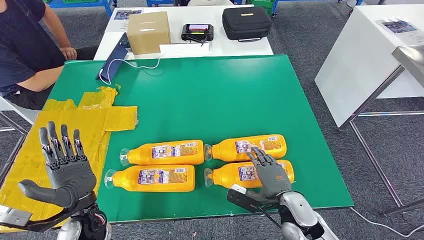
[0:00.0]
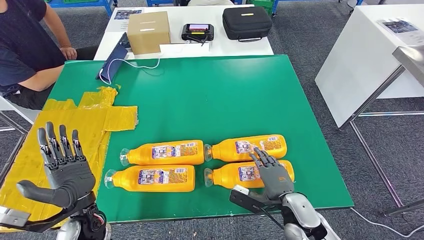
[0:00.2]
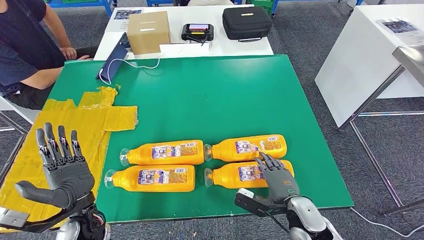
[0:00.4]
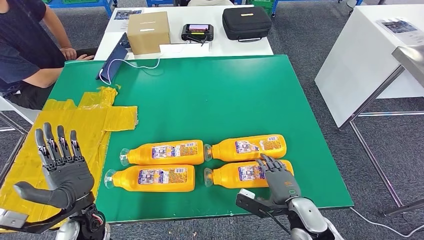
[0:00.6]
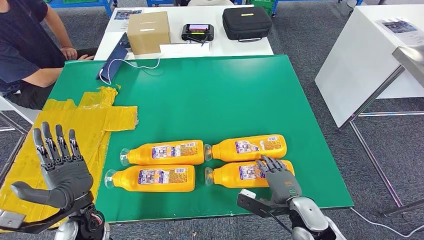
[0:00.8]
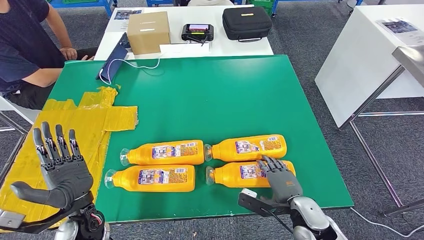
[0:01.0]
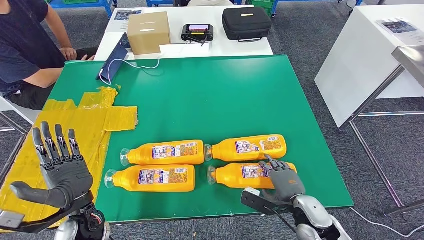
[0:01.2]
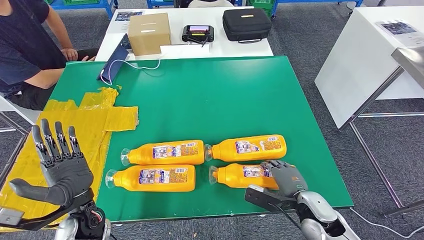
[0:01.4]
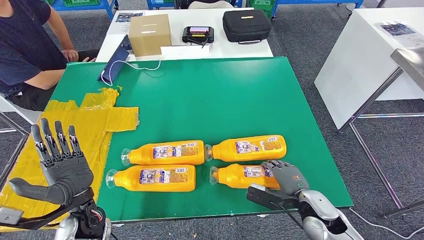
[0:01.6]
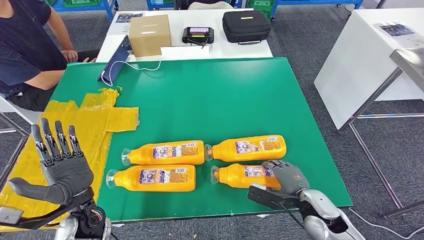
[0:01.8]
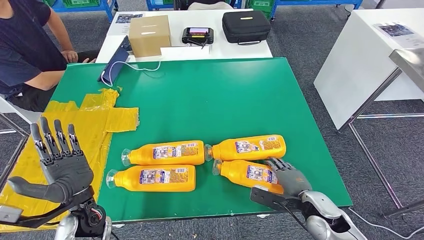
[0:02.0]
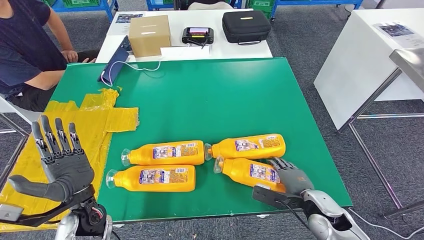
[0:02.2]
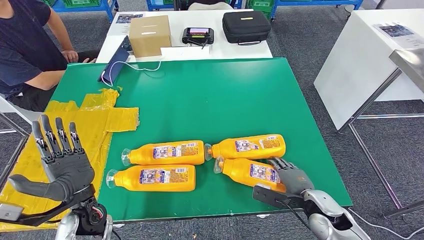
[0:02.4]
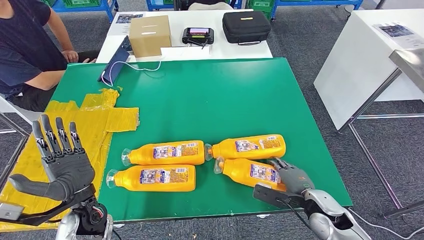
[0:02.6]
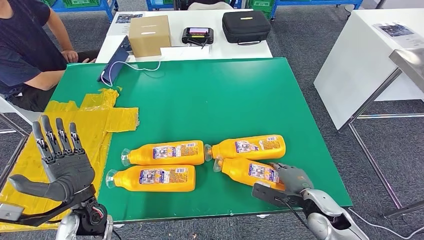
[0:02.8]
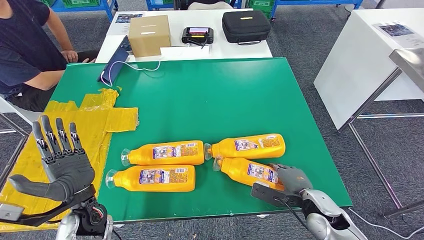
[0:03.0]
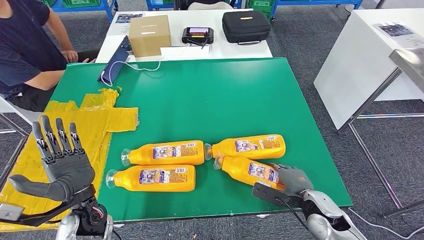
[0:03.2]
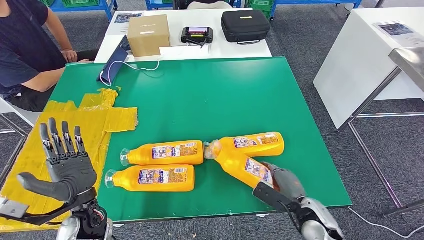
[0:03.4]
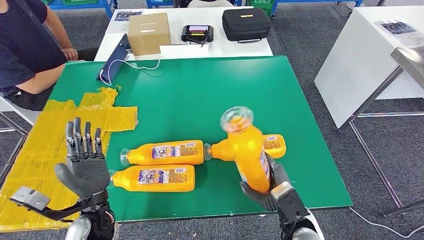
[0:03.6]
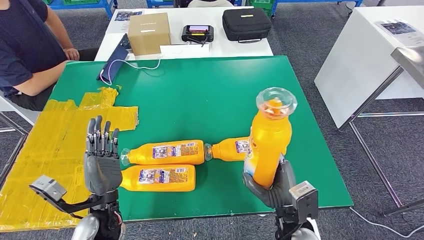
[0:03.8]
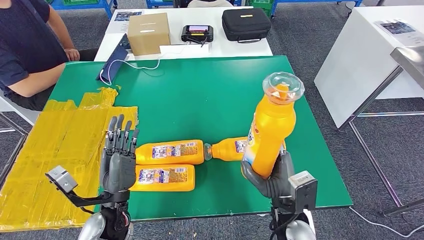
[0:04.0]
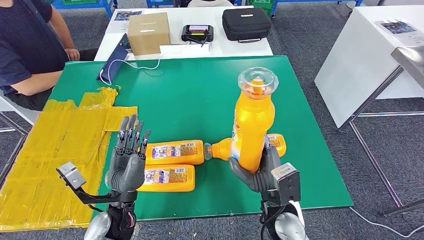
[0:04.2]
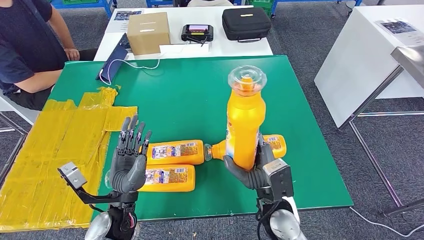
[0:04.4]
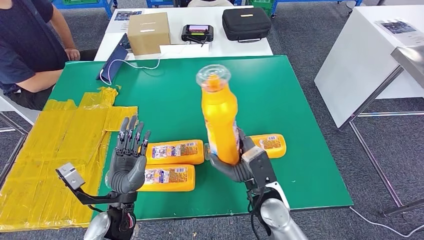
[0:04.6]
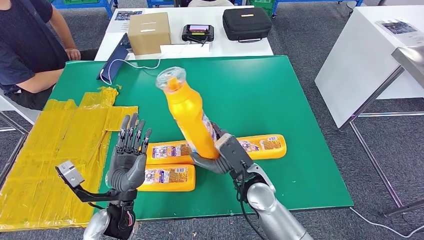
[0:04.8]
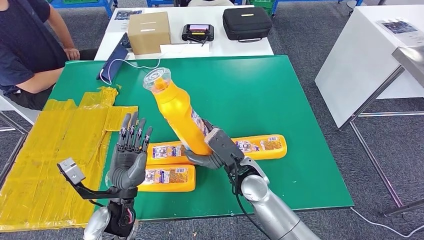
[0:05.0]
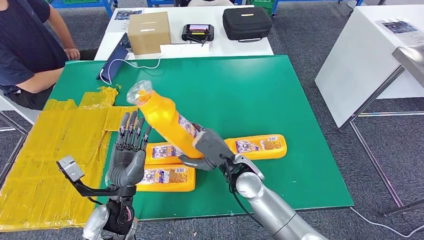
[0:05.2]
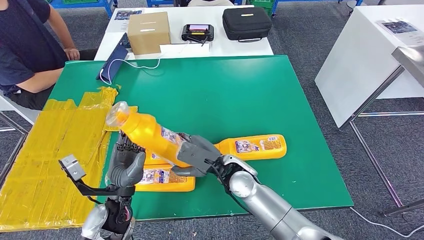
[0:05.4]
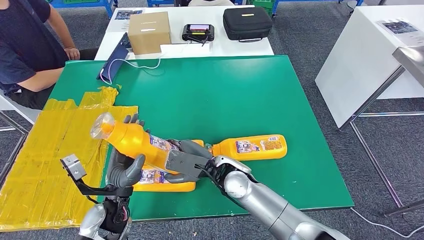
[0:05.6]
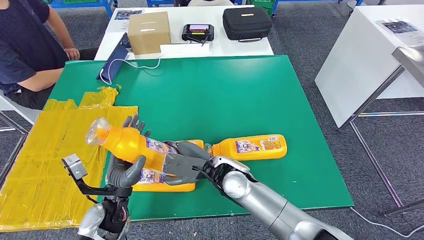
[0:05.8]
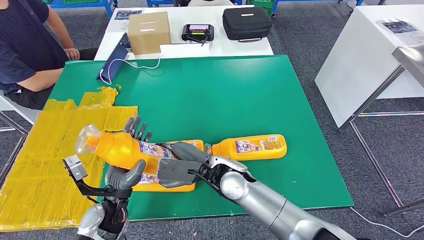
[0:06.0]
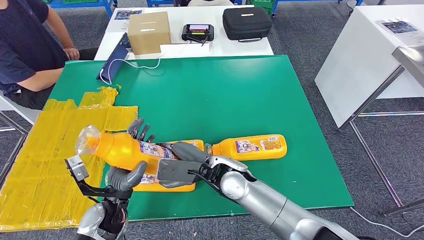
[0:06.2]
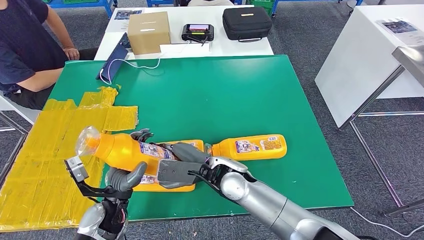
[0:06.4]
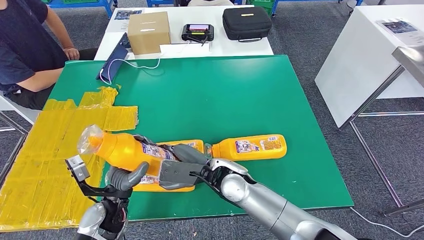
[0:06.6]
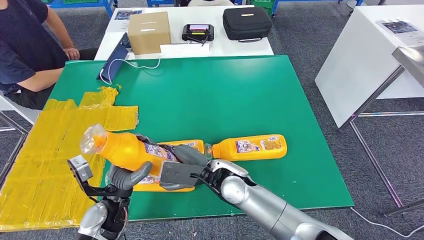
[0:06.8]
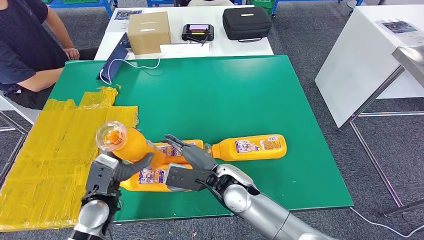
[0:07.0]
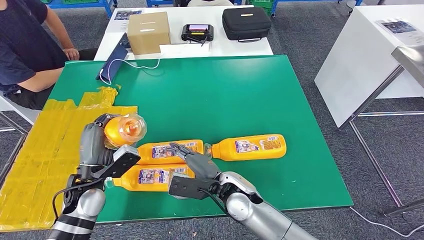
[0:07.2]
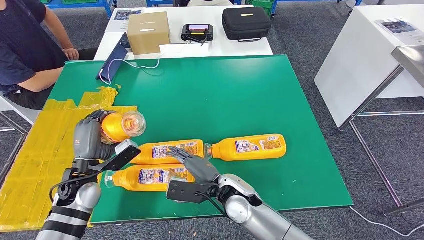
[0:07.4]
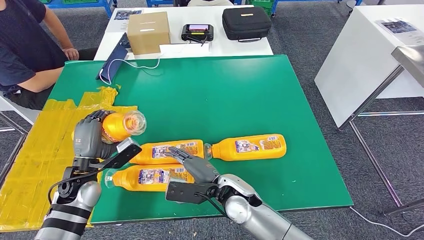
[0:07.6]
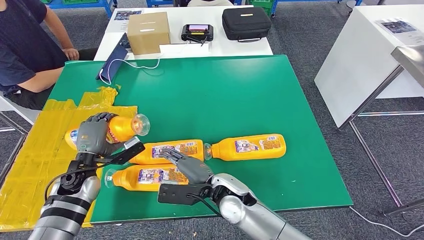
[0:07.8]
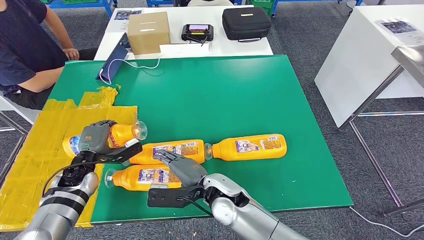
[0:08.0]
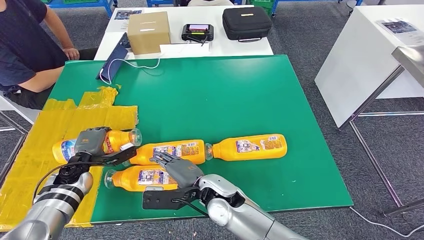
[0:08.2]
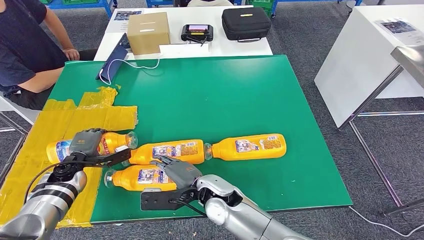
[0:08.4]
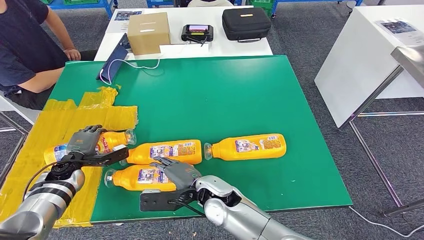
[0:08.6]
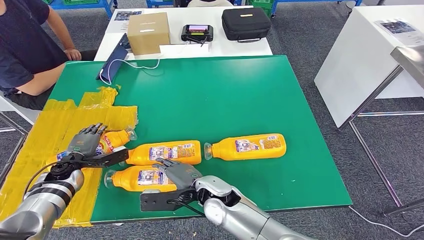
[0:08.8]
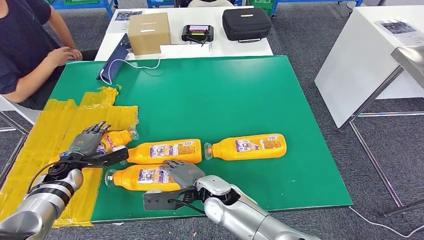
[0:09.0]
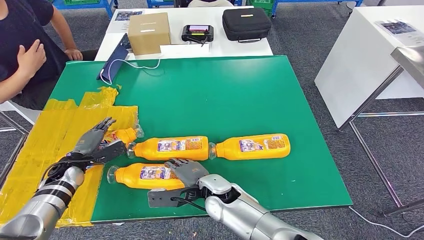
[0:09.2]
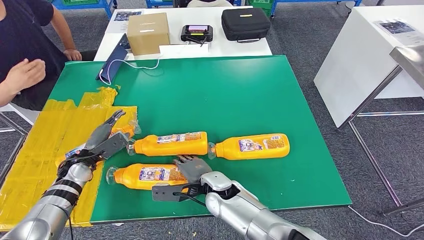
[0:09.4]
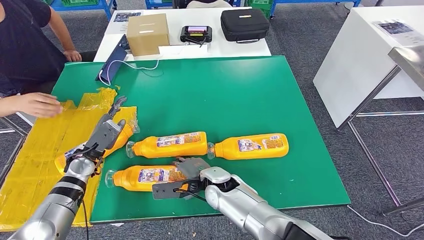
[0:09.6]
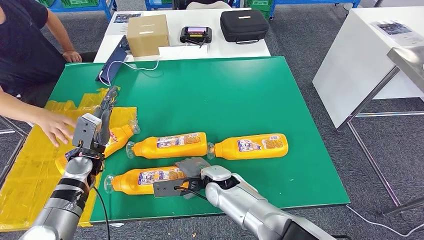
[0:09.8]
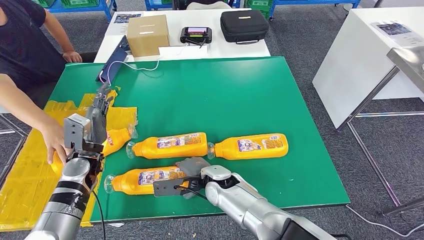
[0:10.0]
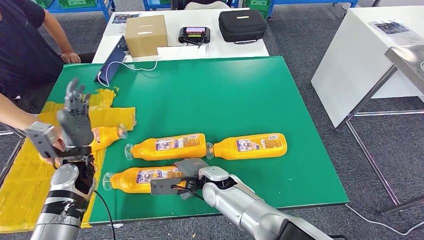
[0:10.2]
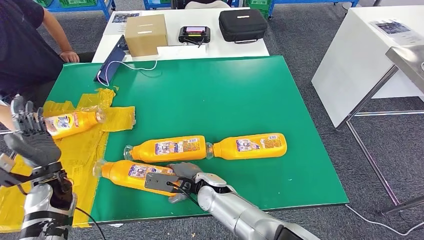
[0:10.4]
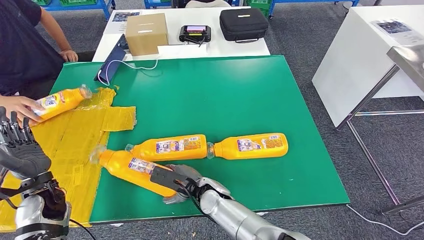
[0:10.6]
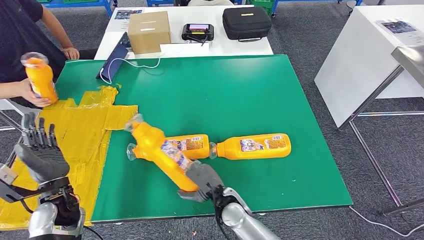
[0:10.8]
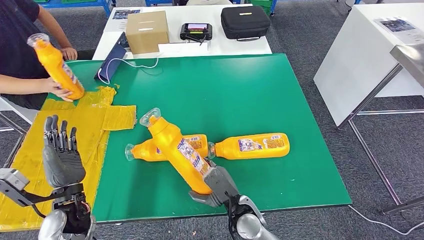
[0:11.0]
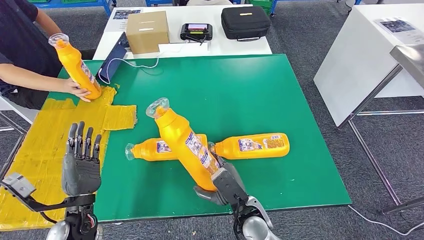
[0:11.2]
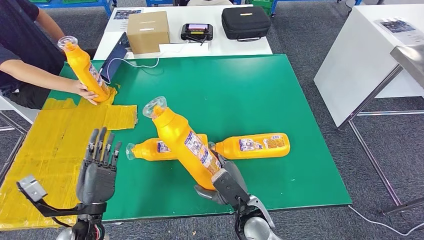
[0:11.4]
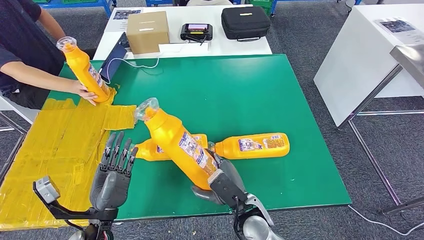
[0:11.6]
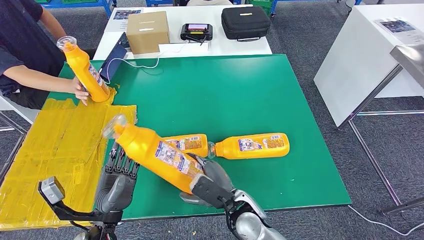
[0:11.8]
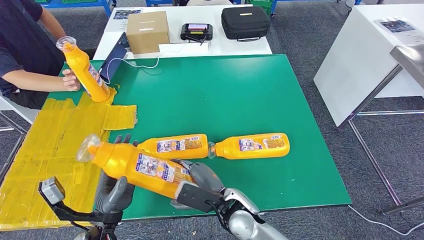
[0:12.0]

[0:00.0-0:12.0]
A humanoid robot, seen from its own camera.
Step, 0.0 to 3.6 s: Take the bottle from the table.
Step, 5.0 to 9.2 s: Flip the bottle to face forward.
Step, 9.8 to 11.4 s: Pick up the bottle from the table.
1.6 to 3.0 s: The hands stay close to where they were, moving slightly.
4.4 to 6.0 s: The right hand goes approximately 15 cm to the left and forward.
6.0 to 7.6 s: The right hand ends up approximately 5 cm from where it was. The left hand moves to the left and forward, some 10 cm.
7.6 to 9.0 s: The right hand ends up approximately 5 cm from where it was; the left hand moves to the left, downward and forward, about 15 cm.

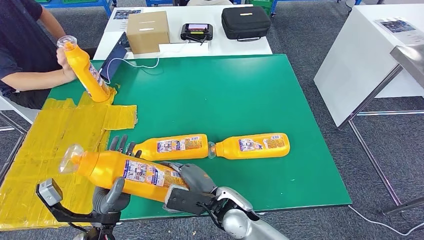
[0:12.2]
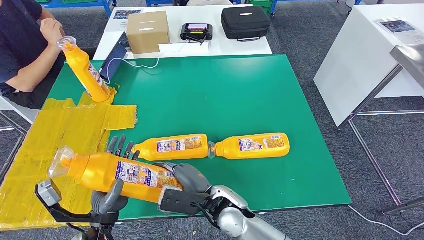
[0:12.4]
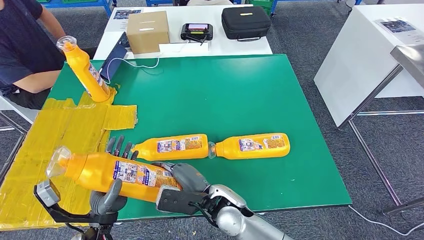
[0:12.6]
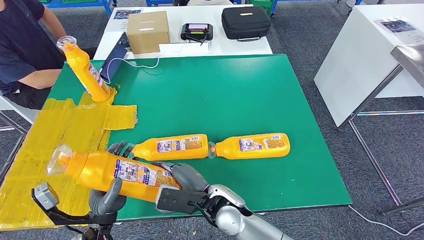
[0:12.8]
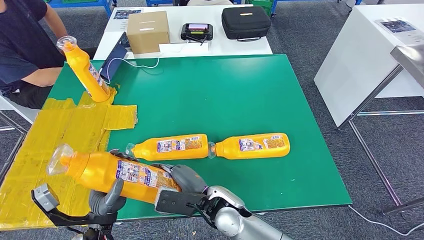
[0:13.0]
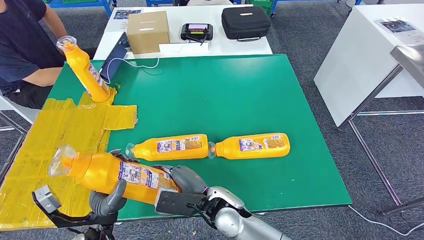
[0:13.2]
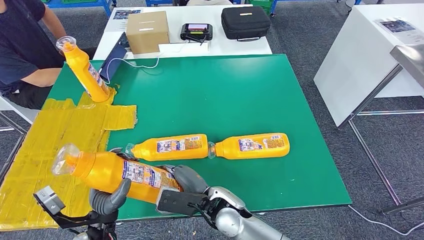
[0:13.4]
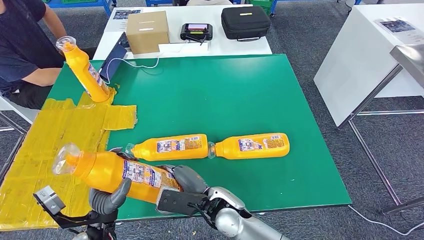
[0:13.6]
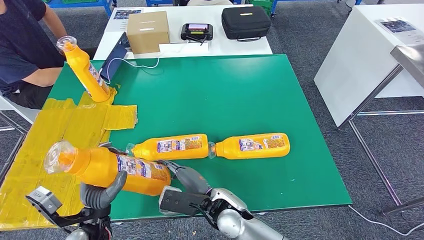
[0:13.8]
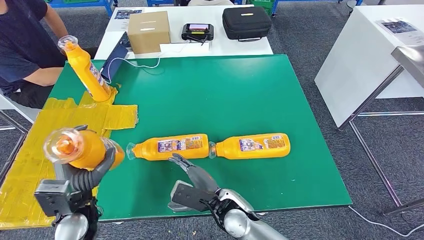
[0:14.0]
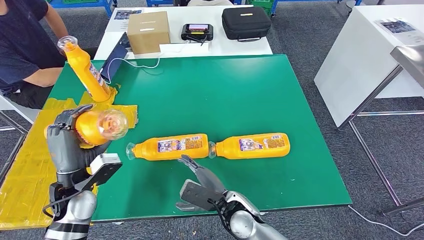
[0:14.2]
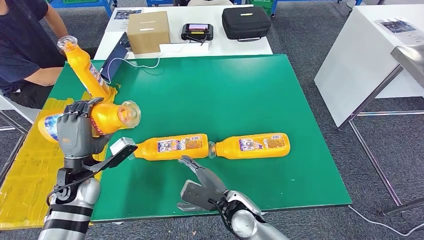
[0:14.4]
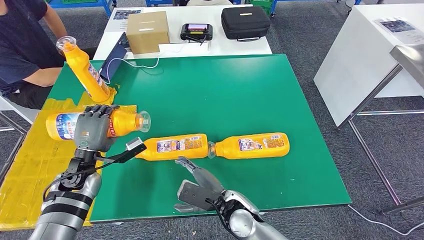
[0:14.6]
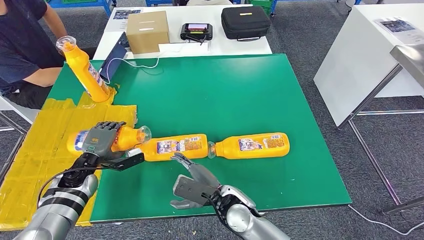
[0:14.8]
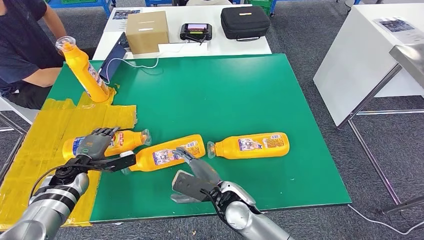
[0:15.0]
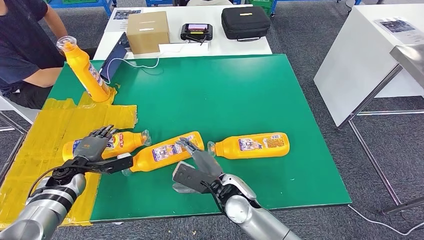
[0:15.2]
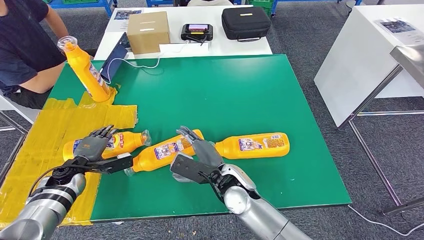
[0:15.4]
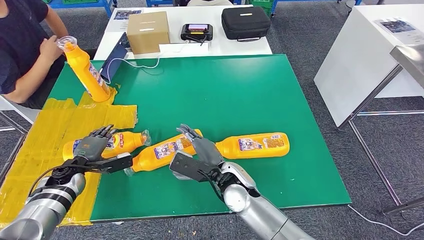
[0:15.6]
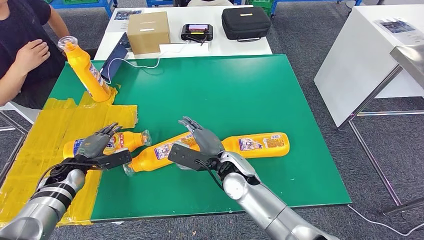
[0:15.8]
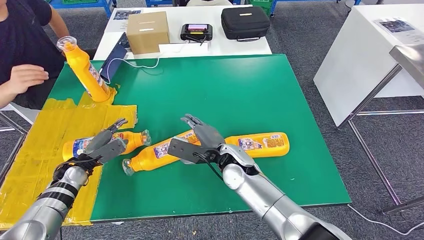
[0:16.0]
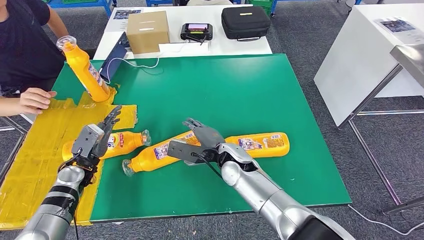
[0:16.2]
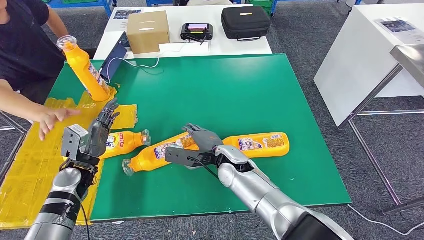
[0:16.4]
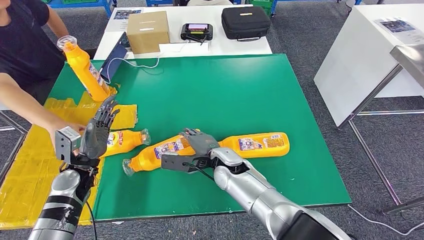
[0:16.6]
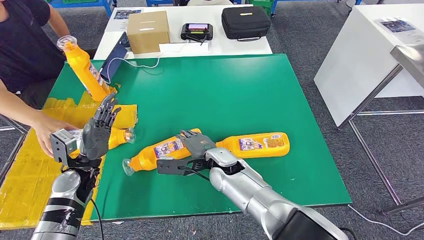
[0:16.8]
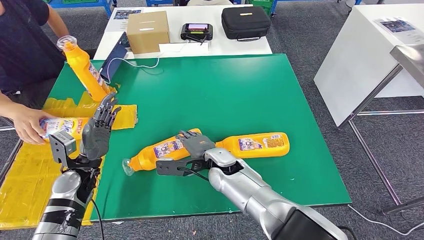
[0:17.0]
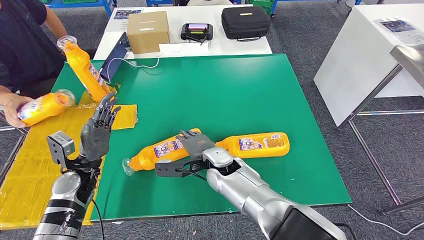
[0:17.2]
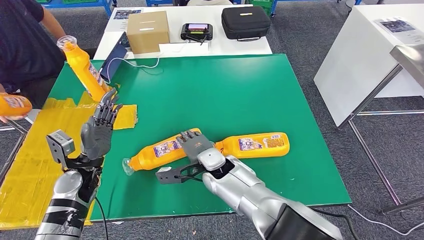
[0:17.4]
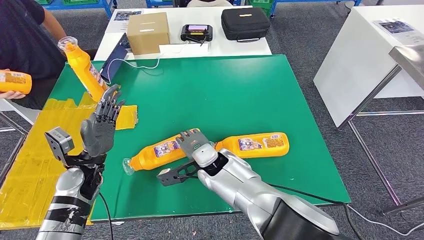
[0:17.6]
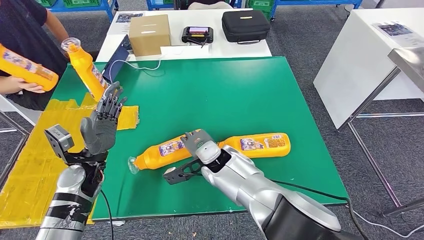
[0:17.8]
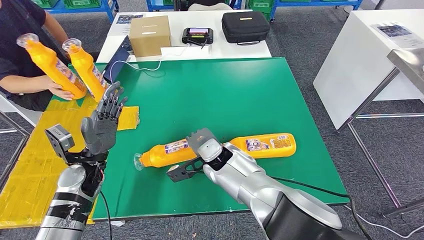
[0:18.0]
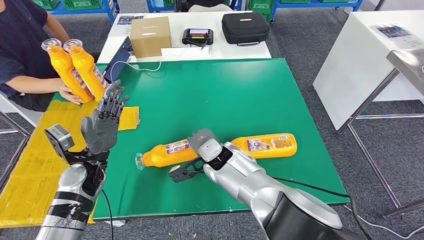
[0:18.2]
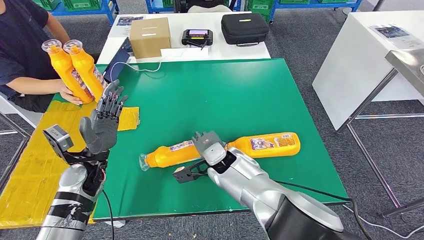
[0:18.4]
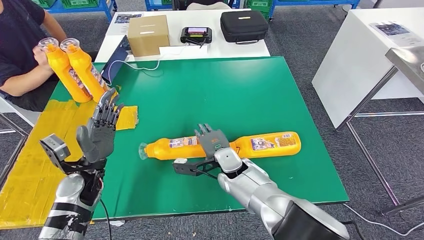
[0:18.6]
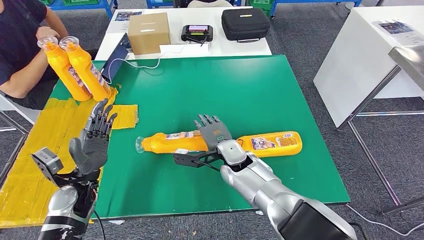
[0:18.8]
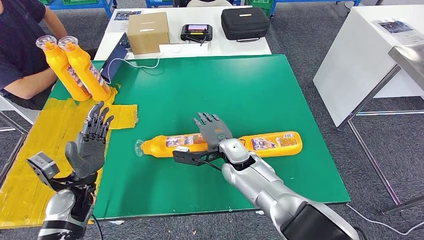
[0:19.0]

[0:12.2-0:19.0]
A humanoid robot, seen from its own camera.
Step, 12.2 to 16.0 s: Flip the bottle to face forward.
13.6 to 15.0 s: The left hand heads forward and to the left, covering about 20 cm.
15.0 to 16.2 s: The right hand shifts about 10 cm forward.
17.6 to 19.0 s: The left hand goes some 5 cm backward. Meanwhile the right hand is displaced to the right by roughly 5 cm.
